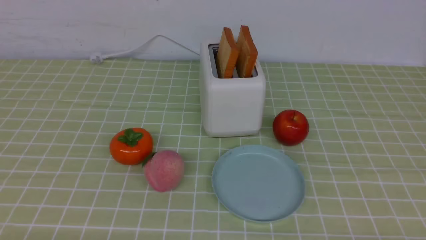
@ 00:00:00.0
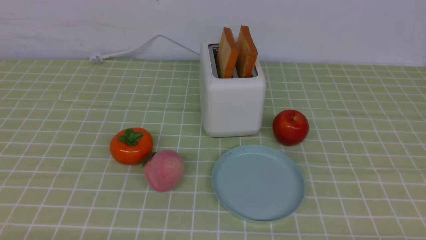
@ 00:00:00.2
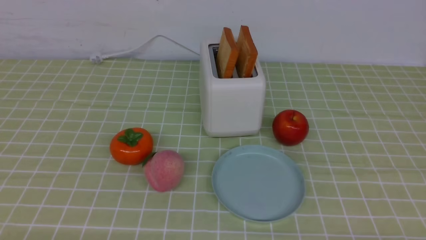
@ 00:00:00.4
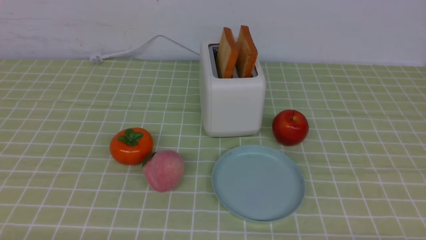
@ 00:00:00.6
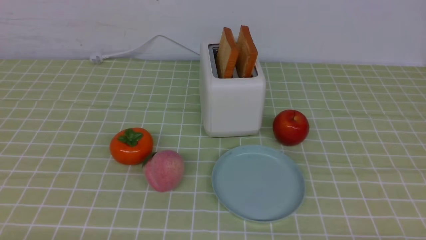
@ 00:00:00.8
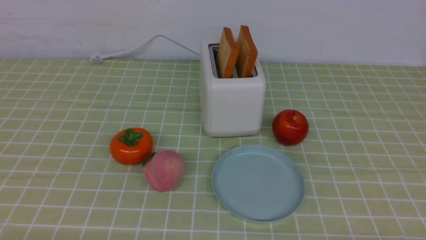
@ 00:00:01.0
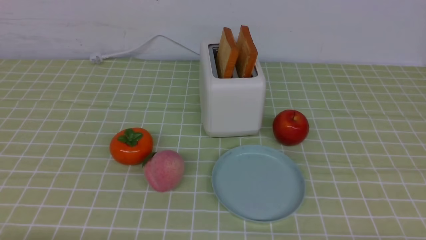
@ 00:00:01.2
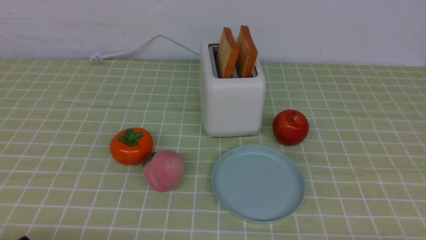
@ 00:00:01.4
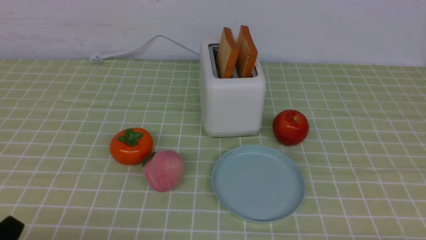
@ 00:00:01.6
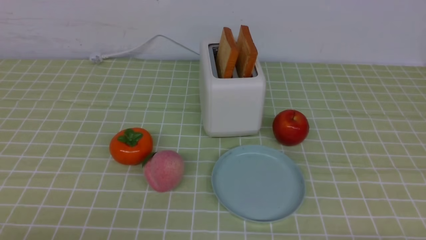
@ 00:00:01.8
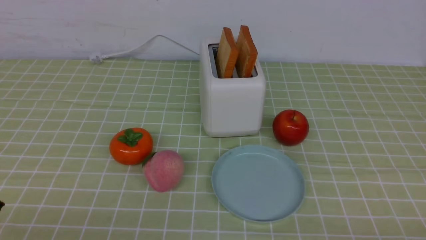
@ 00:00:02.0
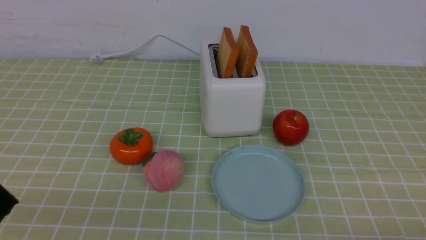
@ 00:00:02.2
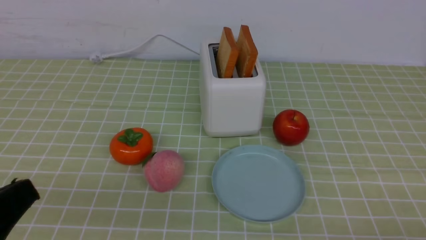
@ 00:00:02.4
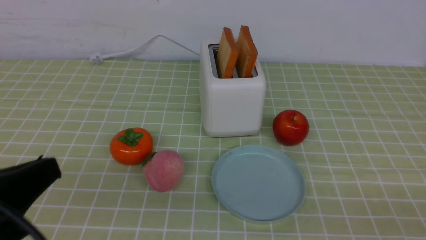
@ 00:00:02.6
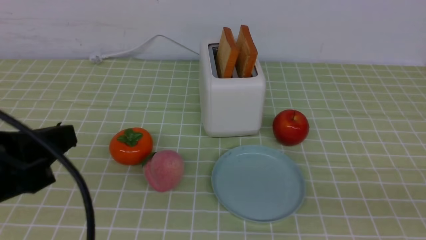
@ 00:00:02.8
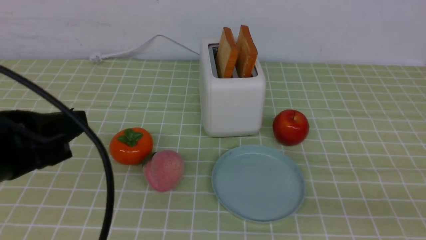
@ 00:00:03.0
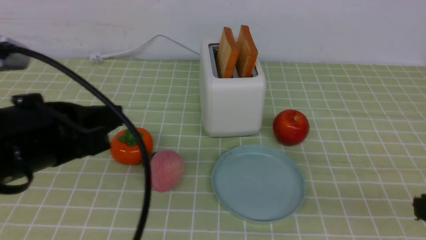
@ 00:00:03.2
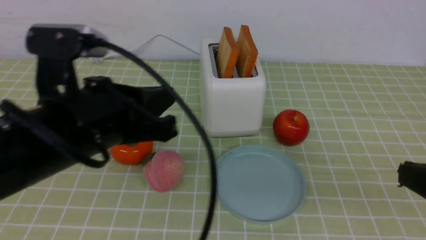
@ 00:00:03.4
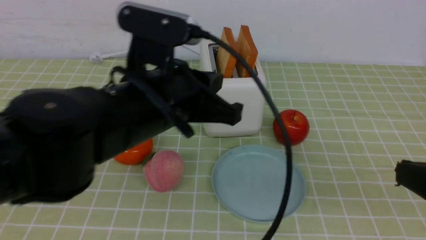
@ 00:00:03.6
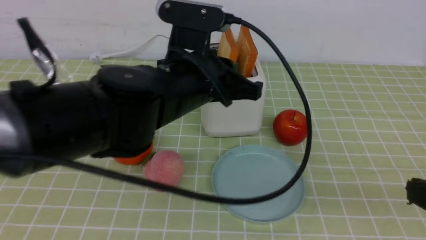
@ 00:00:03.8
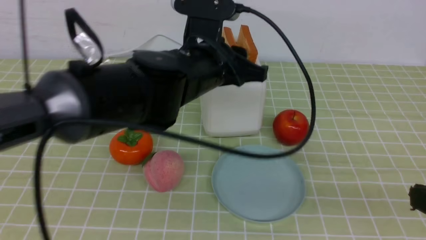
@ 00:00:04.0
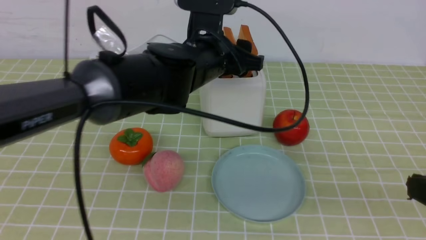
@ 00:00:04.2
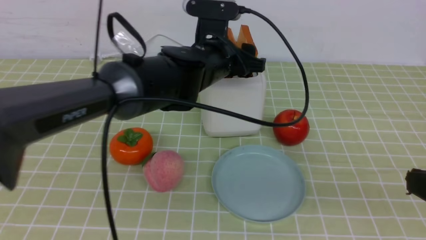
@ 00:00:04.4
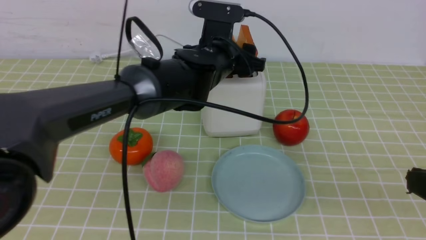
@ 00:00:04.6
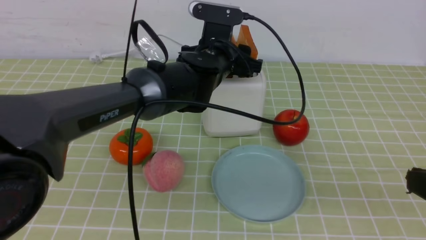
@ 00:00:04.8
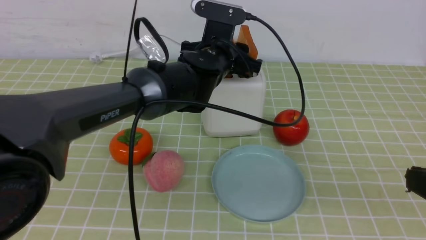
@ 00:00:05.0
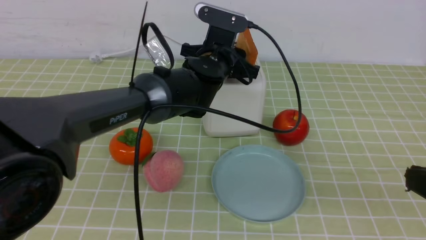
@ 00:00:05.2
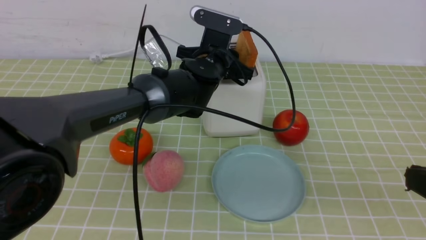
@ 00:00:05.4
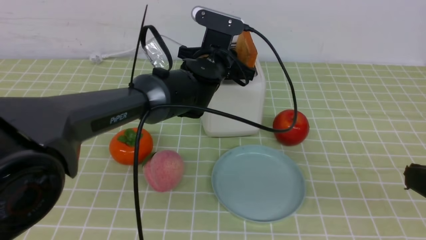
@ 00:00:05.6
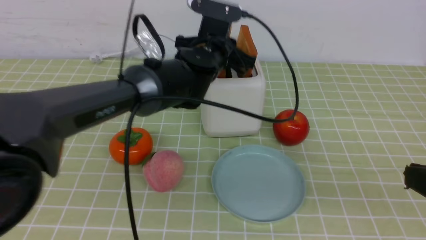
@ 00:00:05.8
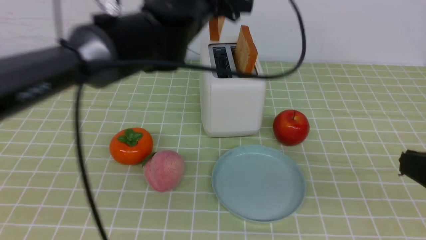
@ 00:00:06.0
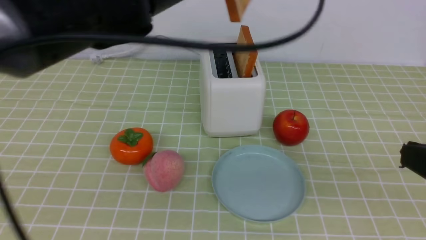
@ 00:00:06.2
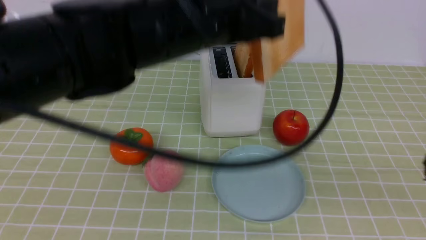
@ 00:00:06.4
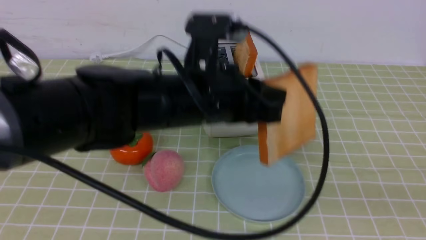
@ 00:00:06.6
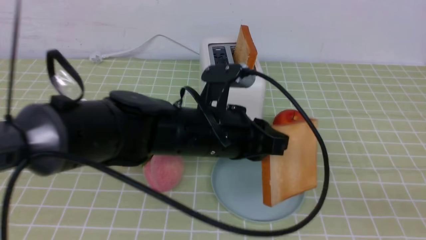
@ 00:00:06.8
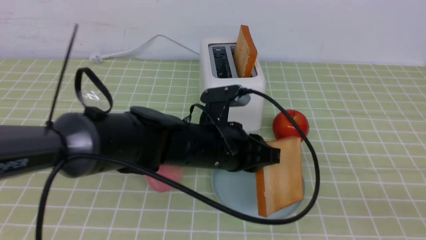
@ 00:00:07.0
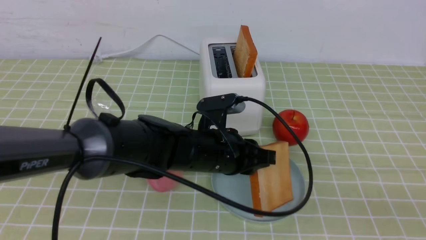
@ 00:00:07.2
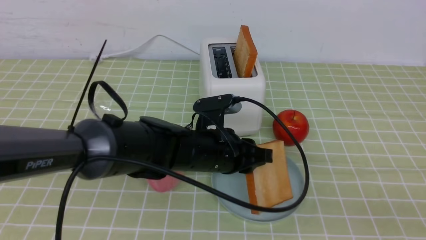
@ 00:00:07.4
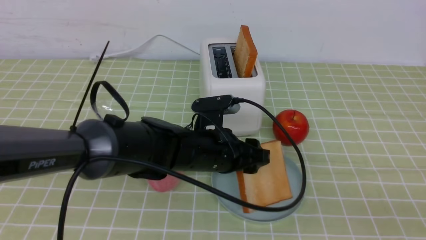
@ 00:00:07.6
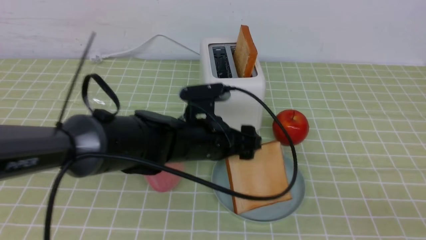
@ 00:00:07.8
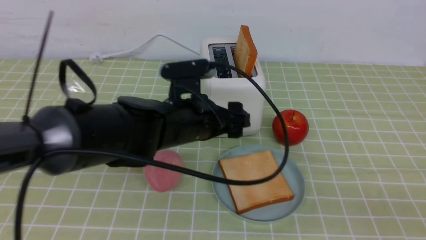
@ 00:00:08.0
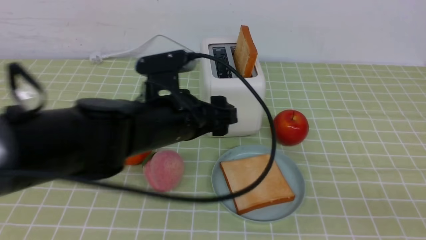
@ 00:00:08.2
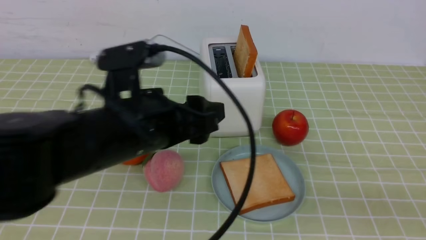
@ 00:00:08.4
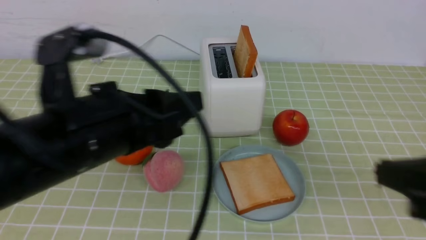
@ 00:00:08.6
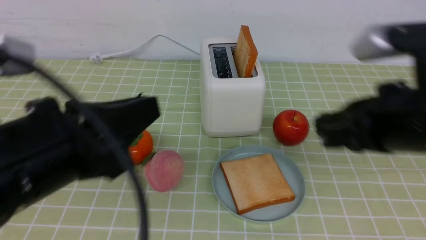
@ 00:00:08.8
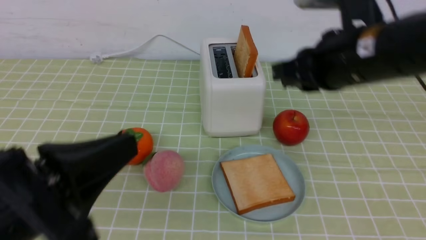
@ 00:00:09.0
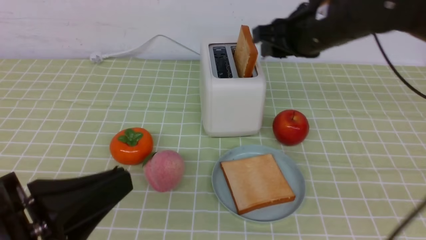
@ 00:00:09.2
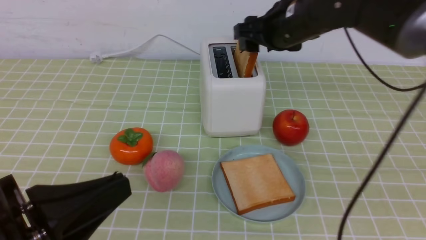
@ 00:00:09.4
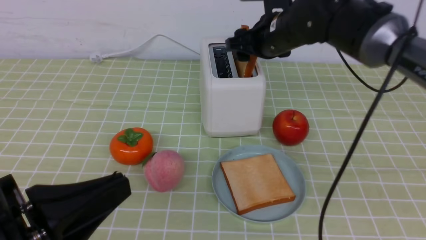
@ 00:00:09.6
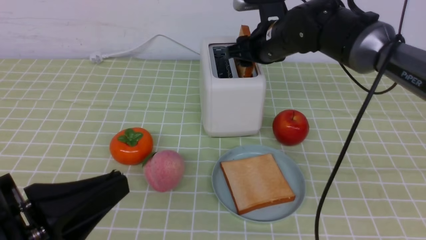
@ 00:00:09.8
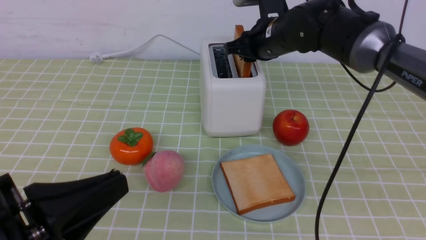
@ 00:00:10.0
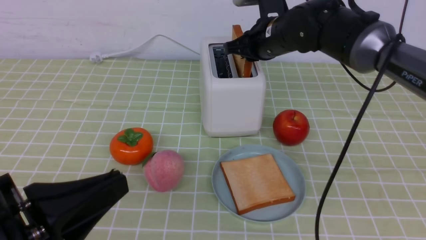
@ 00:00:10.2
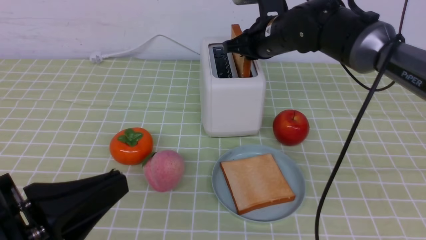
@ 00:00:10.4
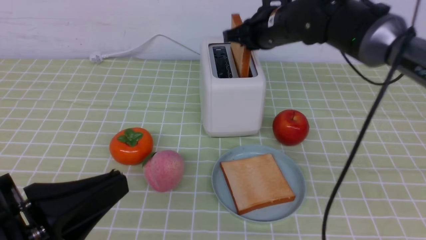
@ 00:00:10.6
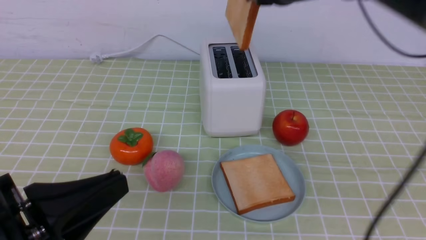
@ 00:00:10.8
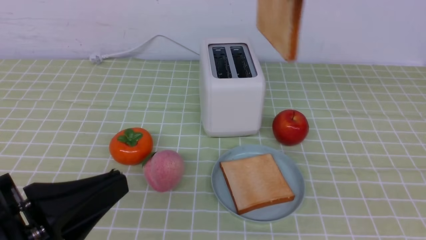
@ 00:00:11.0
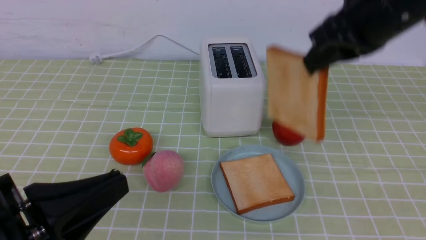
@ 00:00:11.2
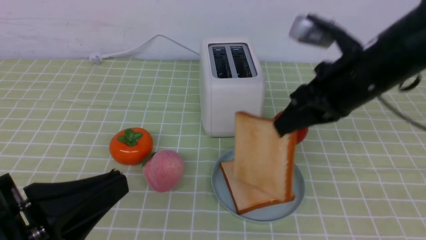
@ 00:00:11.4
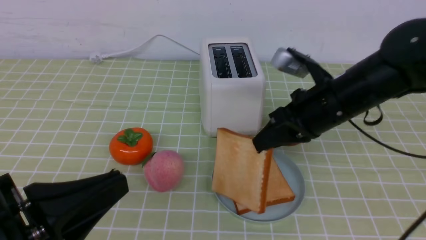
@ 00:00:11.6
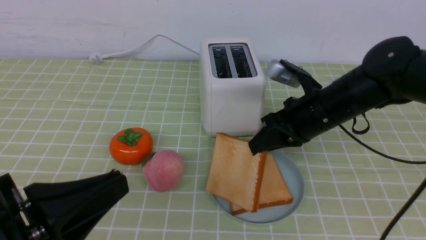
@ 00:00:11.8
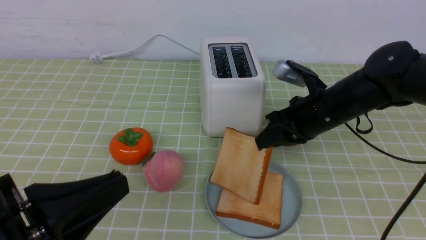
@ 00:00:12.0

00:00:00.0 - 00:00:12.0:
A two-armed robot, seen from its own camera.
Task of the whole recording: take toasted bread from bread machine on green coffee tablecloth place on plate.
Step, 00:00:00.0 - 00:00:05.8: use the left arm to take out a slice of bread.
Step, 00:00:06.0 - 00:00:08.4: use the left arm to put a slice of bread into the empty plate.
Step, 00:00:08.6 - 00:00:10.8: use the right arm to take out a slice of bread.
00:00:01.6 - 00:00:03.0: The left gripper heads upward and forward, covering some 15 cm, and closes its fingers.
00:00:03.0 - 00:00:04.4: The left gripper heads forward and to the right, covering approximately 30 cm, and opens up. Meanwhile the right gripper closes up.
00:00:04.4 - 00:00:06.0: The left gripper is displaced upward by roughly 10 cm, and closes its fingers.
00:00:06.0 - 00:00:07.6: The right gripper moves backward, approximately 5 cm. Meanwhile the left gripper is displaced downward and backward by some 20 cm, and opens.
00:00:07.6 - 00:00:09.0: The left gripper goes approximately 30 cm backward, to the left and upward, and closes. Meanwhile the right gripper goes about 30 cm forward and to the left, and opens up.
00:00:09.0 - 00:00:10.4: The right gripper goes roughly 15 cm forward, and opens and closes again.
00:00:10.4 - 00:00:12.0: The right gripper goes some 15 cm backward, downward and to the right.

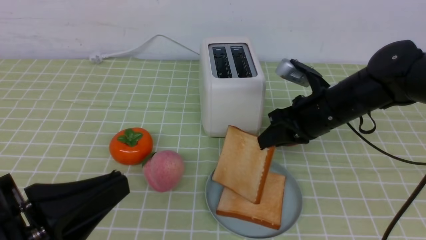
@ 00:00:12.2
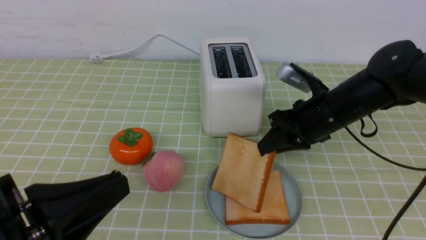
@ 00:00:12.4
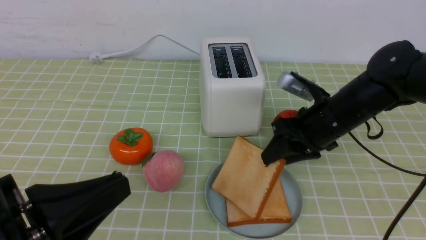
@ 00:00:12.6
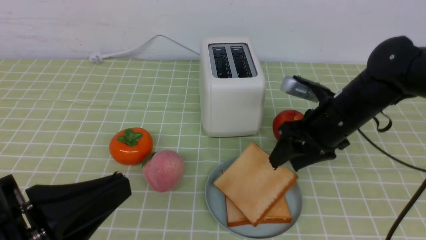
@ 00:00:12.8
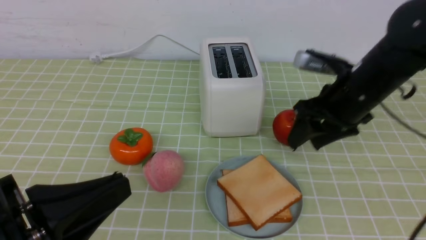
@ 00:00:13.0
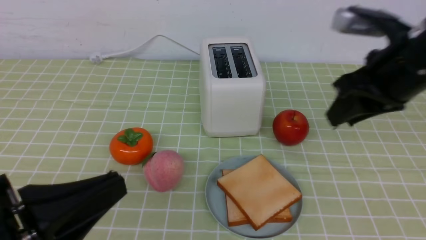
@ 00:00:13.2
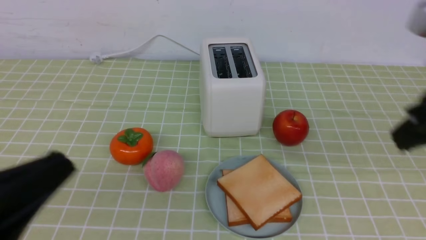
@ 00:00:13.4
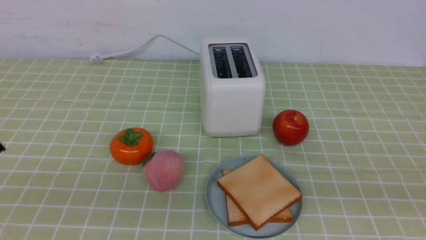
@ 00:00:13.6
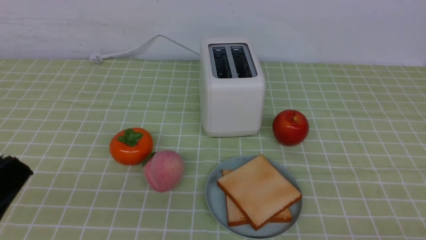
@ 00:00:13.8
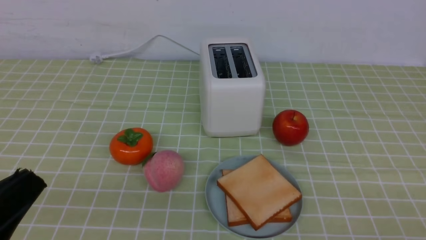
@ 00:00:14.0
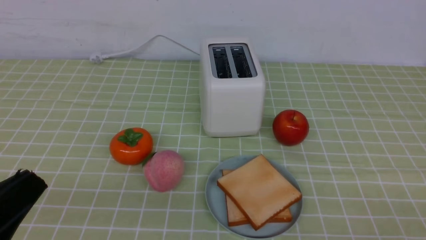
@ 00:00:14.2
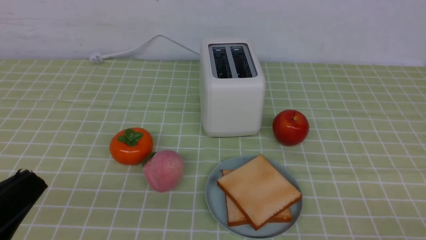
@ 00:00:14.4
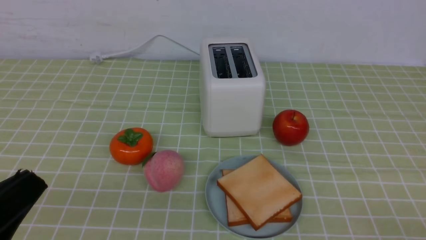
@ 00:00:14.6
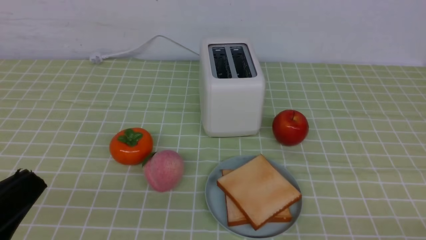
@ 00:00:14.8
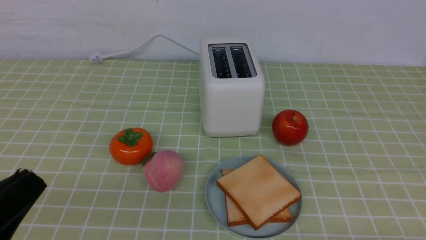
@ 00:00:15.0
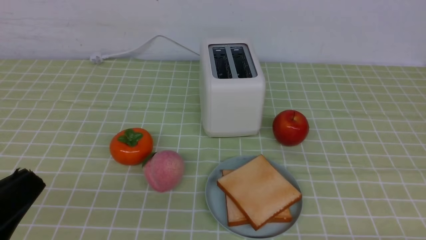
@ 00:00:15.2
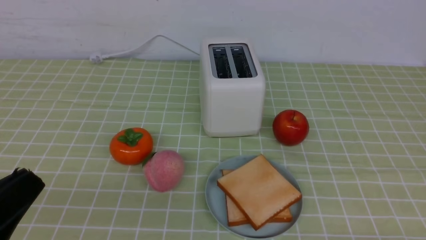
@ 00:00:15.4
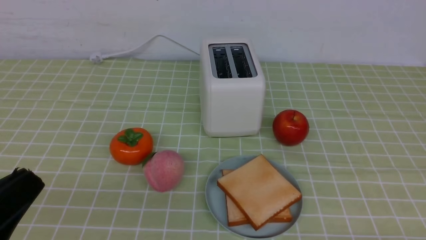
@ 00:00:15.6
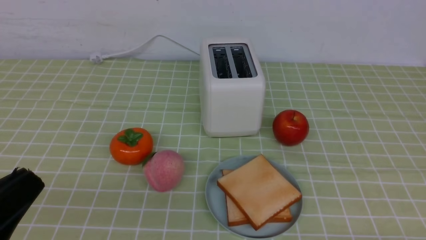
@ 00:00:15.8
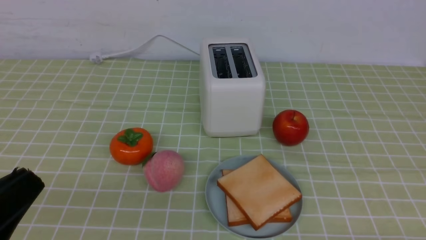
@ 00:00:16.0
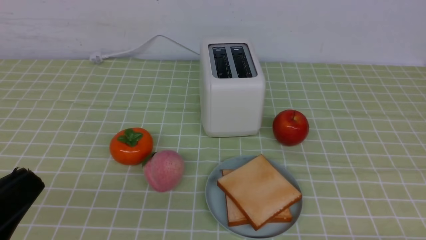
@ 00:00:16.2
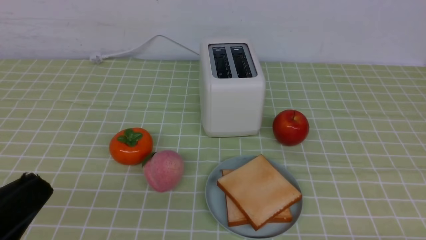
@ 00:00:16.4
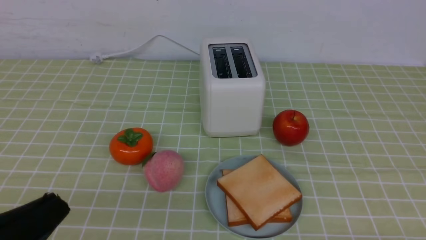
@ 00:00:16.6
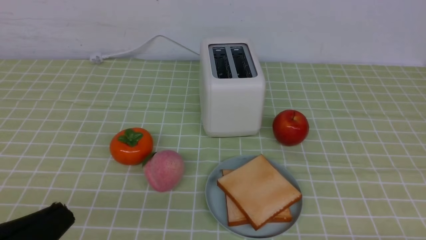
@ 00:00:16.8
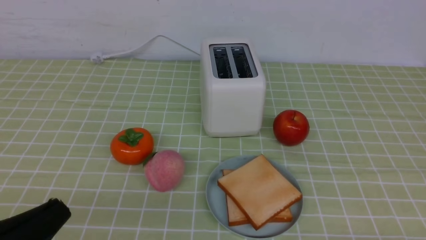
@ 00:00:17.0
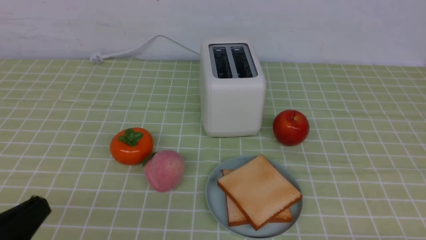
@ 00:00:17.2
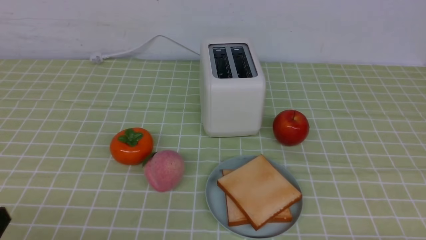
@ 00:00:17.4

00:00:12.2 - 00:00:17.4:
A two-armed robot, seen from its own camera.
Task of the whole recording: take toasted bread from bread machine on green coffee tablecloth place on plate.
00:00:12.2 - 00:00:14.0: The left gripper ends up approximately 5 cm from where it was. Meanwhile the right gripper moves backward, some 35 cm, and opens, then closes once more.
00:00:15.6 - 00:00:17.4: The left gripper moves downward, about 5 cm.
